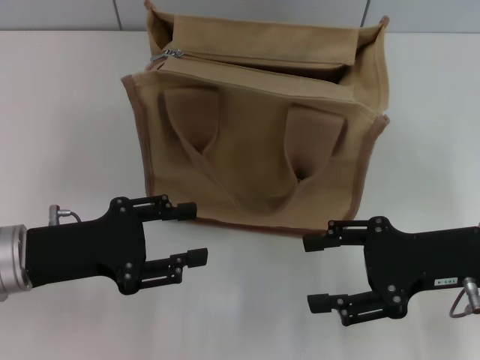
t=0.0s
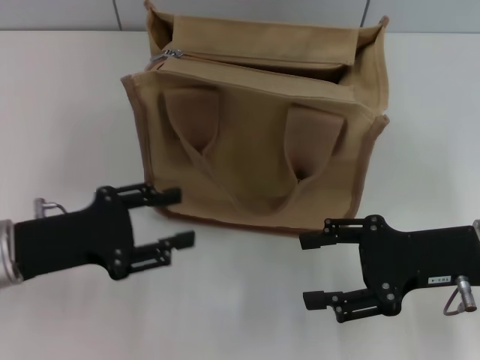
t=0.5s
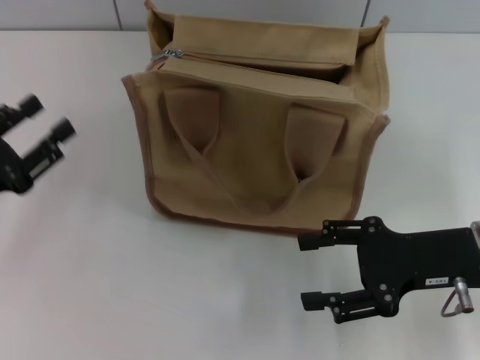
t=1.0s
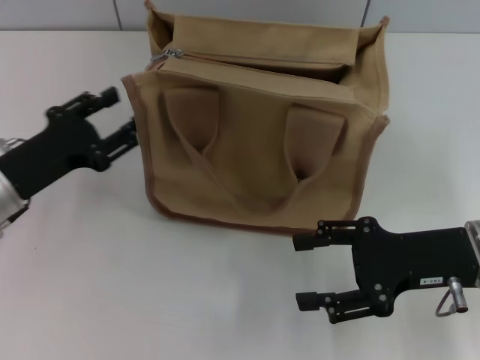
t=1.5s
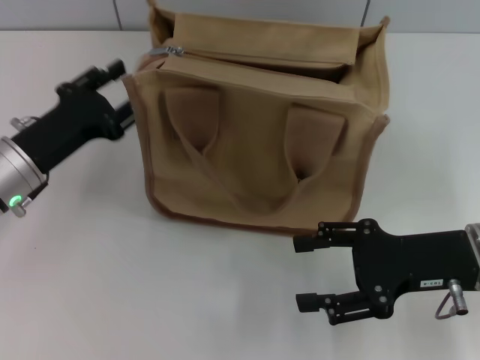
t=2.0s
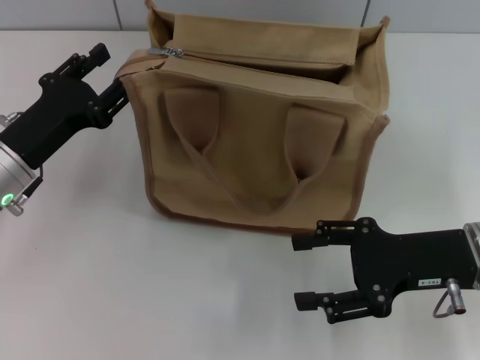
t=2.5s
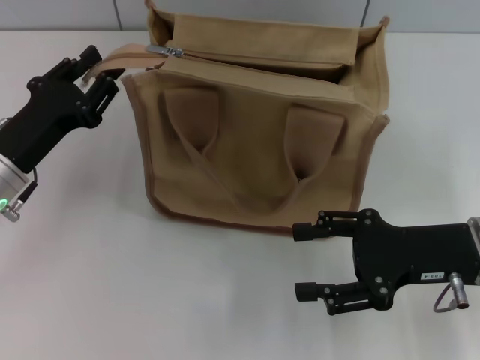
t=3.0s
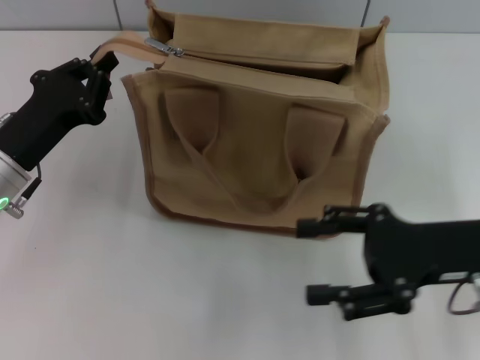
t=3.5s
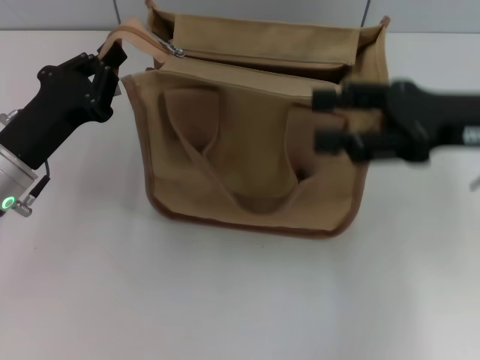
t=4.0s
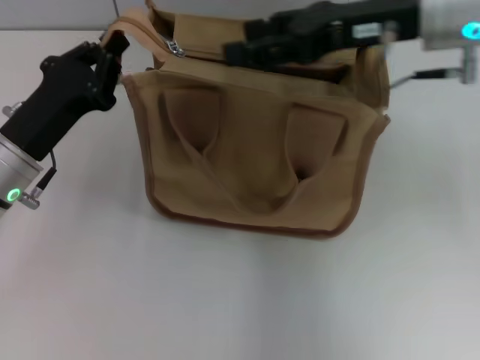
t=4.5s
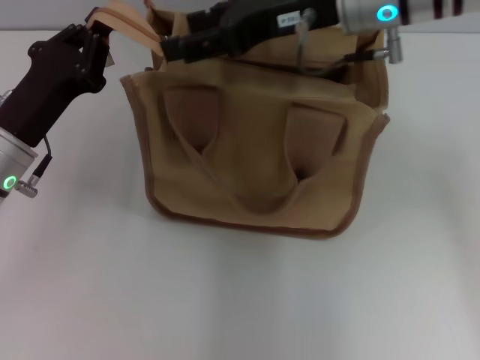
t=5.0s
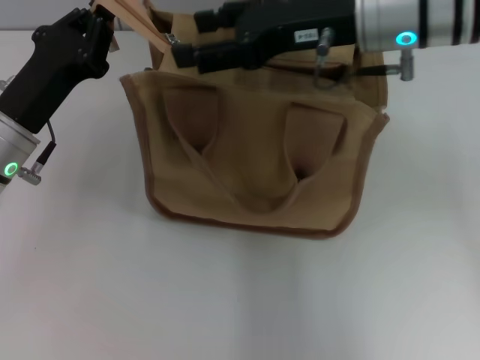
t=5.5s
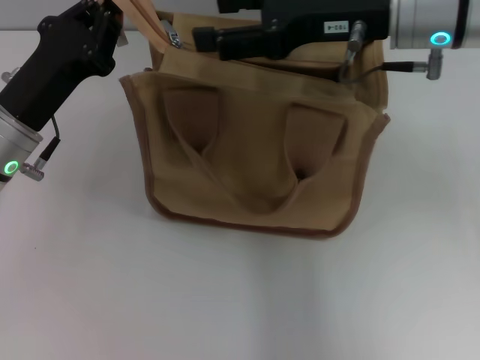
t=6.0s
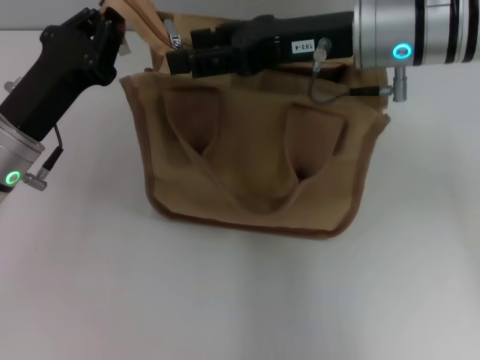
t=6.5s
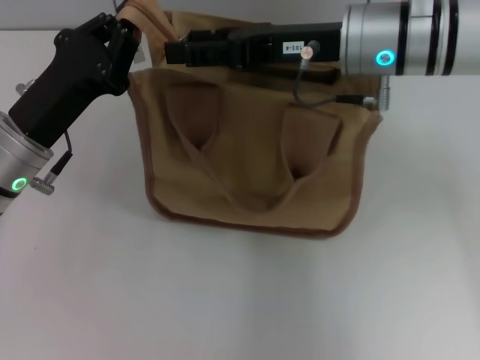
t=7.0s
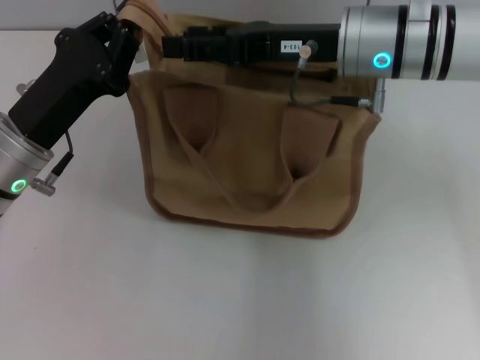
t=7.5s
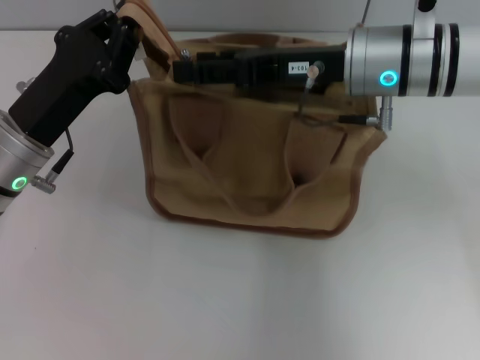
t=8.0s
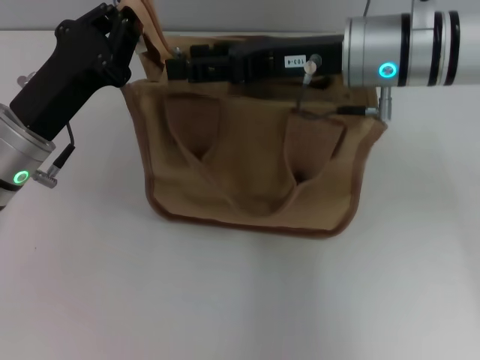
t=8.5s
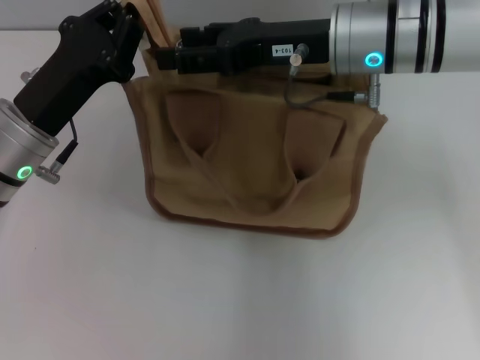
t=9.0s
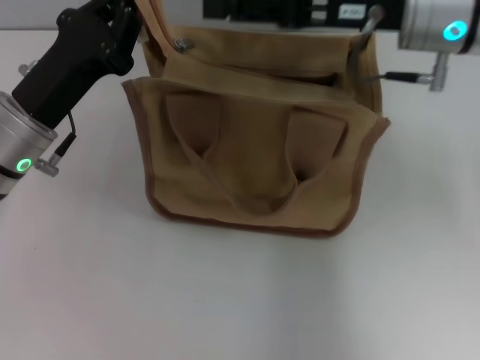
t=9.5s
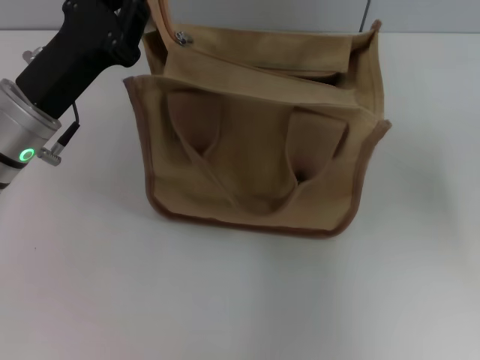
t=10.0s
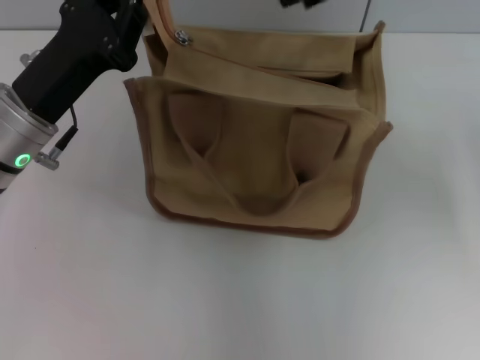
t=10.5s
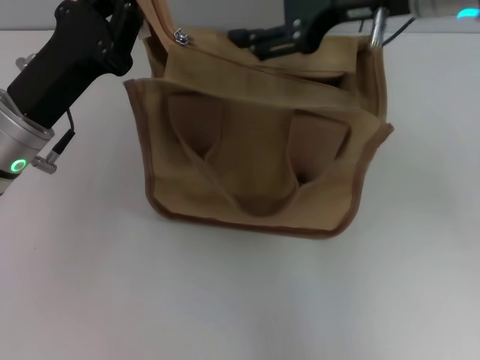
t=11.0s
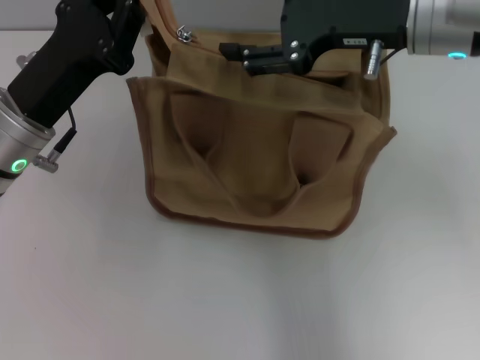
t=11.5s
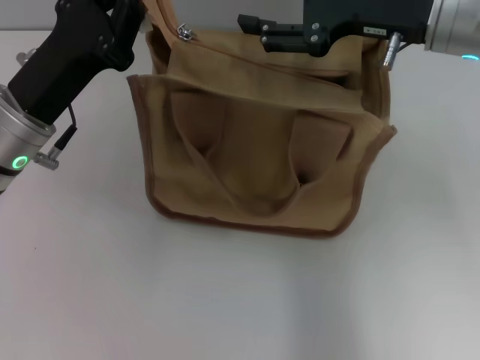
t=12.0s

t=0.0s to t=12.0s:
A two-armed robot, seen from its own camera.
t=0.0s to t=2.0s: The left gripper shifts approximately 5 cm forward.
t=2.0s to t=4.0s: The left gripper closes up; the right gripper shifts some 10 cm upward and forward.
t=4.0s to t=6.0s: The right gripper goes roughly 10 cm to the left and forward.
t=6.0s to t=8.0s: The right gripper travels downward by some 5 cm.
t=8.0s to t=10.0s: The right gripper travels upward and to the right by approximately 15 cm.
t=10.0s to t=12.0s: The right gripper goes some 10 cm downward.

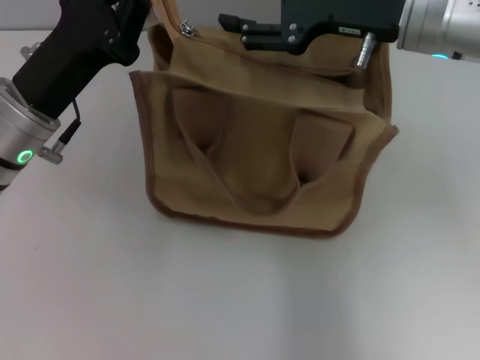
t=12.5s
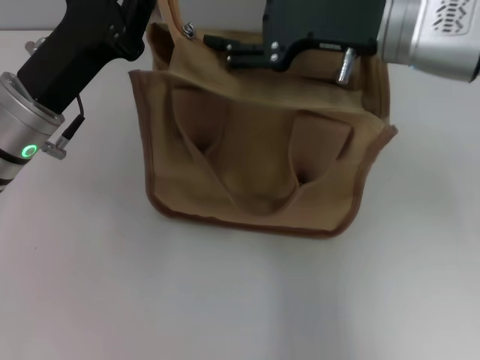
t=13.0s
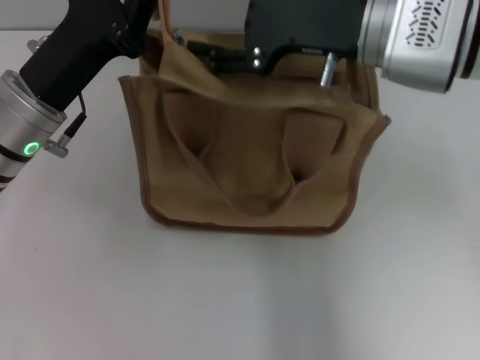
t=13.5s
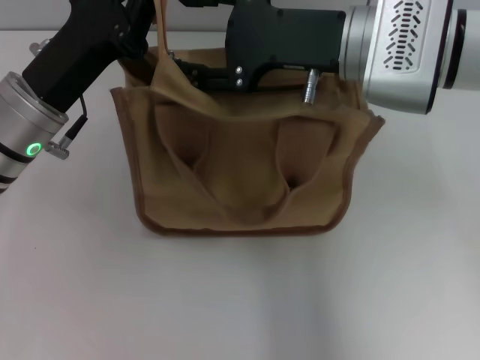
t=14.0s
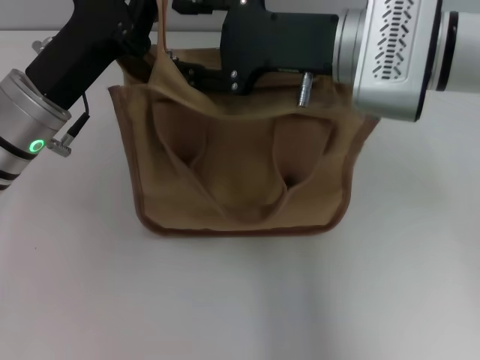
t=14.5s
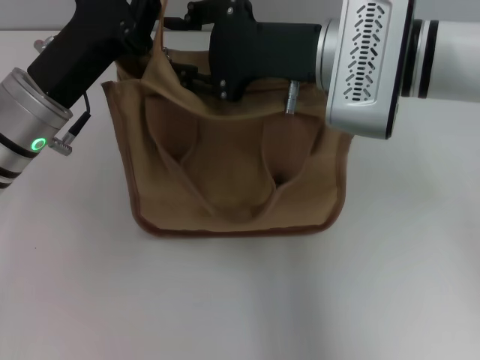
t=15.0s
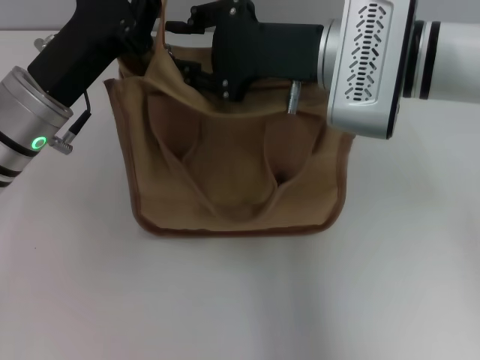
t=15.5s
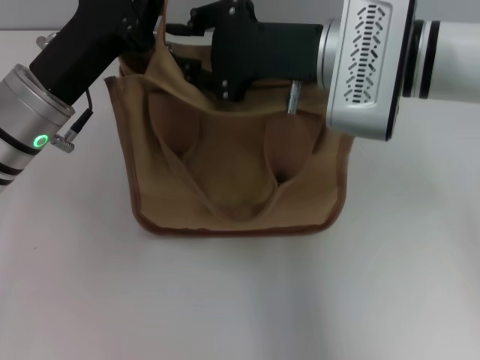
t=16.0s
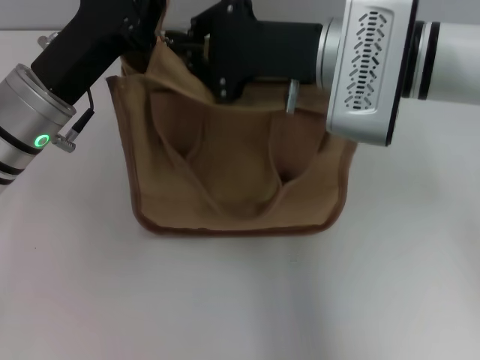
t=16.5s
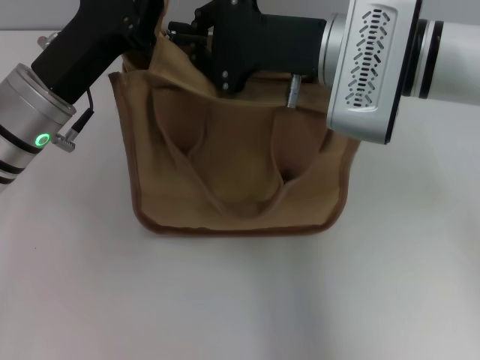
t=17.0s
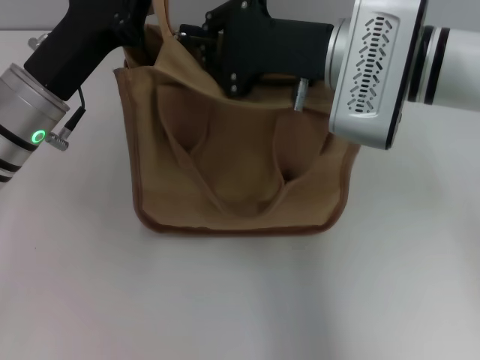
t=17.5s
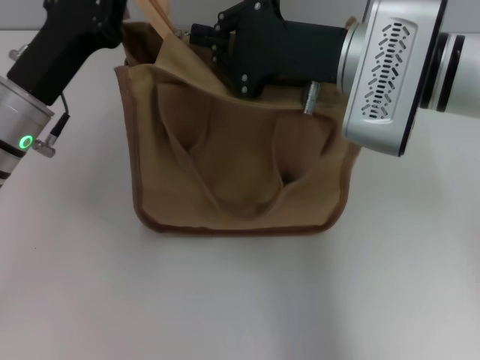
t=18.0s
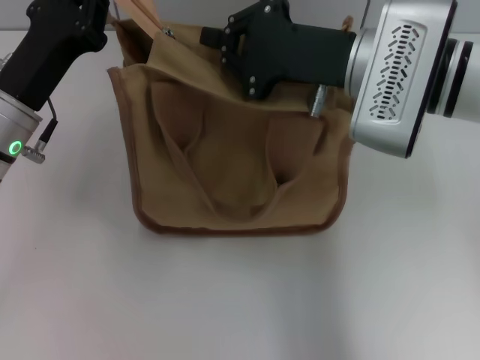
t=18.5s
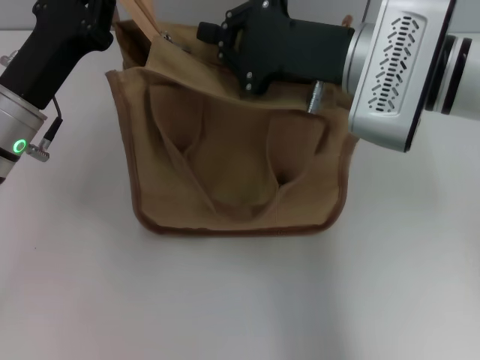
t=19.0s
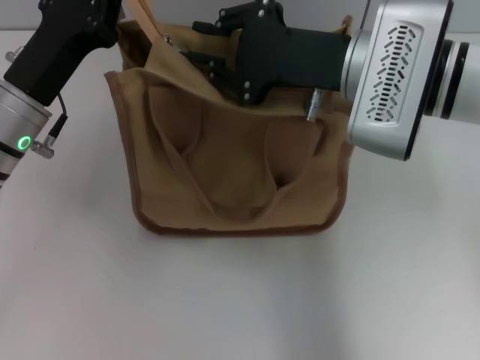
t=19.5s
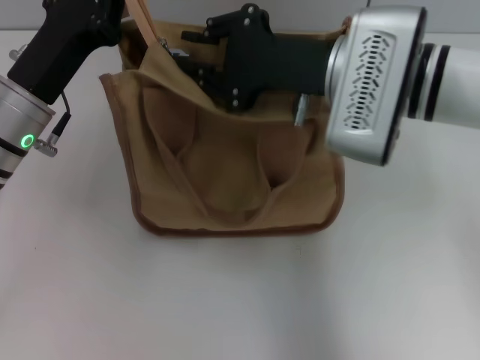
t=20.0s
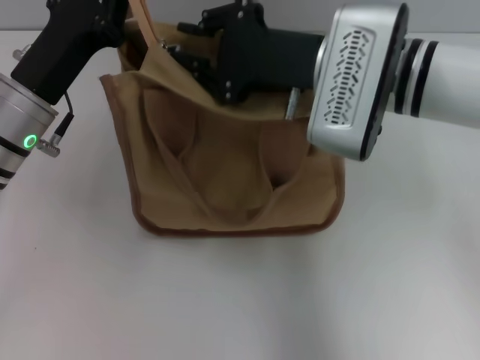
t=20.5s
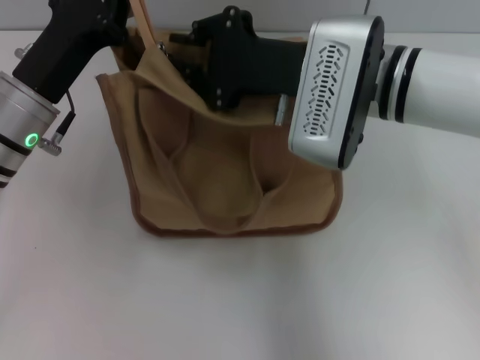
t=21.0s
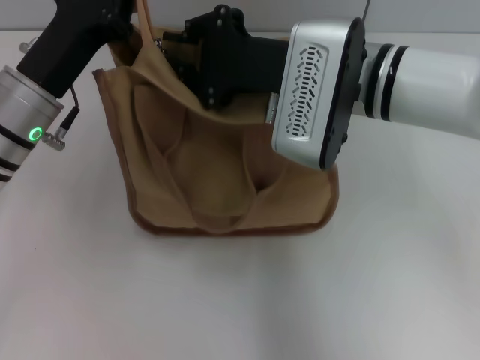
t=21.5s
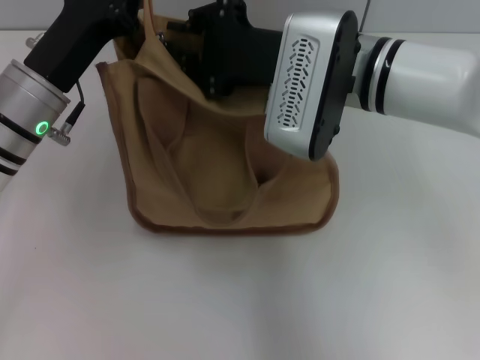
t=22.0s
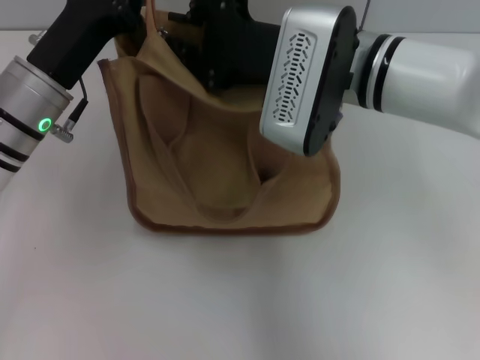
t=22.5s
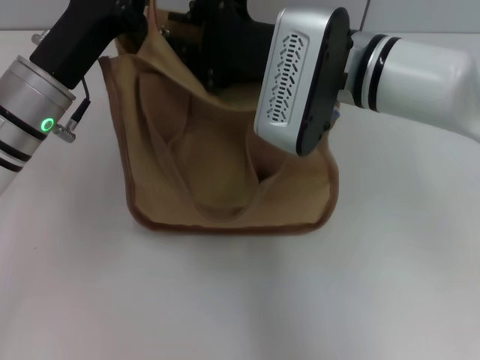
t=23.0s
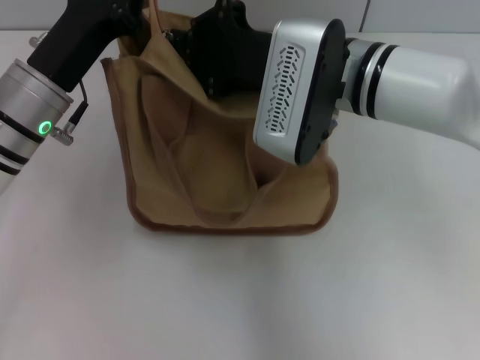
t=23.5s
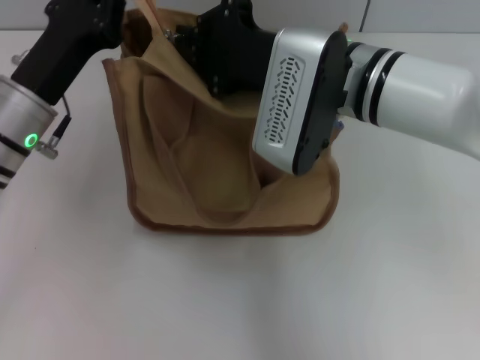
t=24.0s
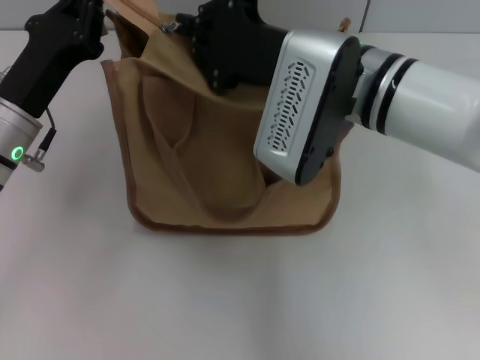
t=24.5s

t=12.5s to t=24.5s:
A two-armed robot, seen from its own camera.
t=12.5s to t=14.5s: The right gripper moves to the left, about 5 cm.
t=14.5s to t=16.5s: The right gripper closes its fingers.
t=20.5s to t=24.5s: The grippers make only small movements.

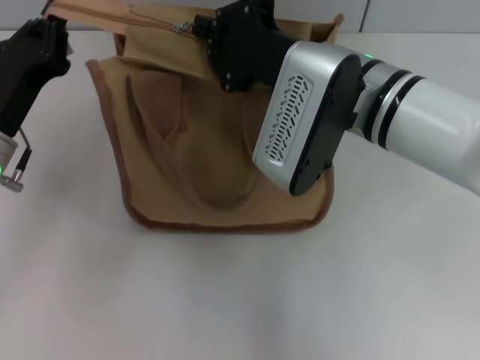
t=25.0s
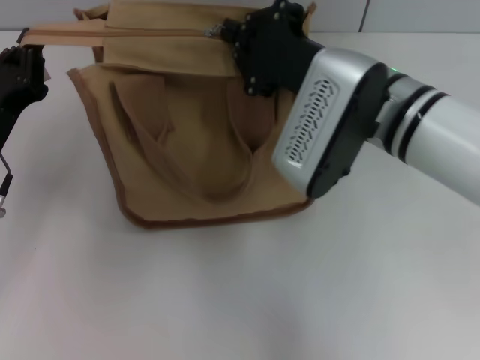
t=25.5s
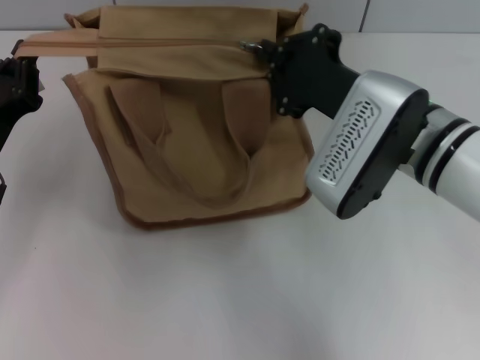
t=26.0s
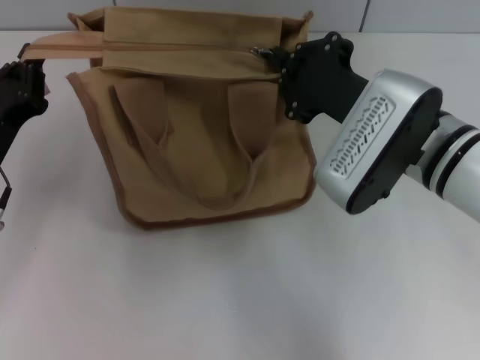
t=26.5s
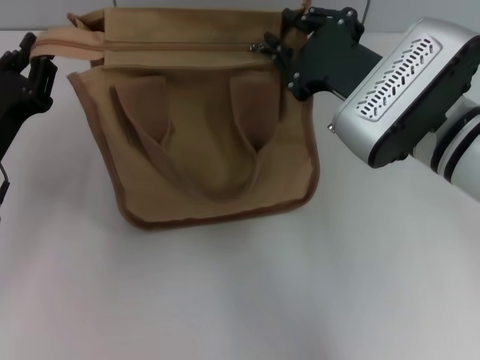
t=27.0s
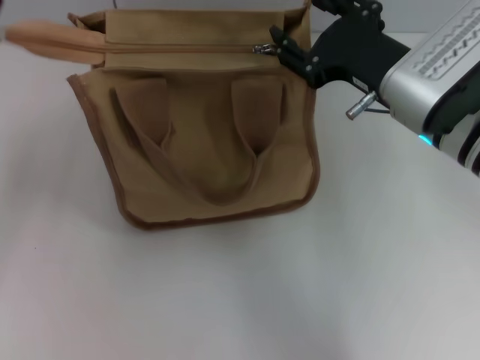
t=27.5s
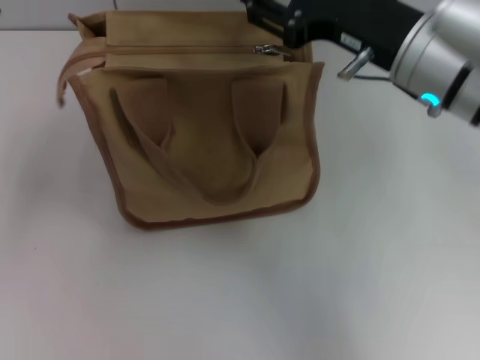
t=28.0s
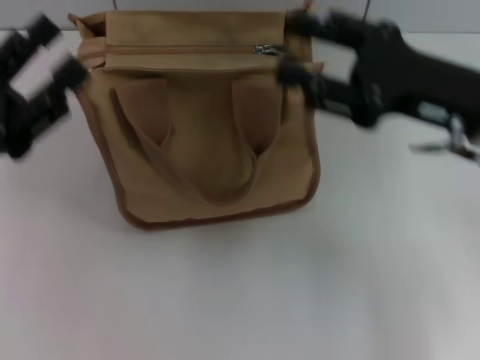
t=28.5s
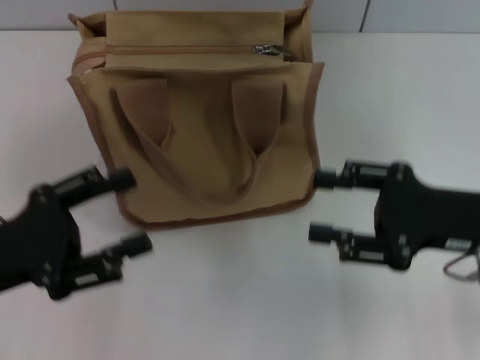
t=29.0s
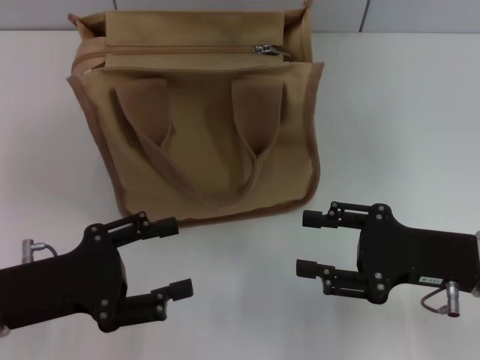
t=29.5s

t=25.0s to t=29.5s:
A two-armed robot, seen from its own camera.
Step, t=25.0s to t=27.0s: Pull up the zipper with your right hand.
t=25.0s to t=27.0s: The right gripper shifts roughly 5 cm to the right.
t=27.0s to t=29.5s: The left gripper moves backward, approximately 10 cm, and opens. Meanwhile the right gripper travels to the right, downward and backward by roughly 15 cm, and opens its fingers.
